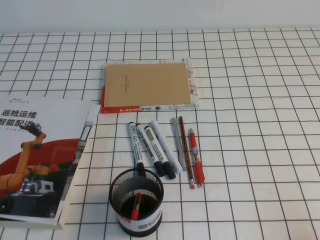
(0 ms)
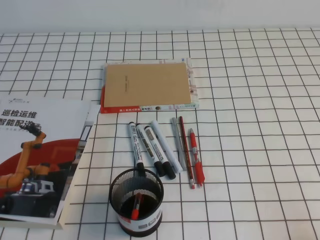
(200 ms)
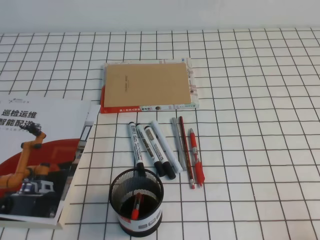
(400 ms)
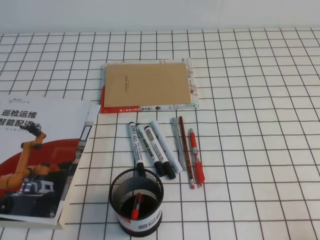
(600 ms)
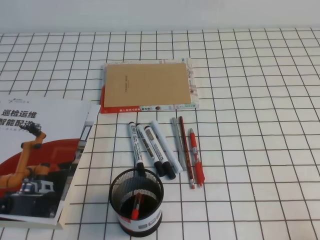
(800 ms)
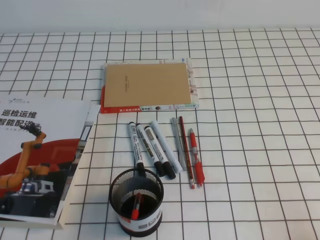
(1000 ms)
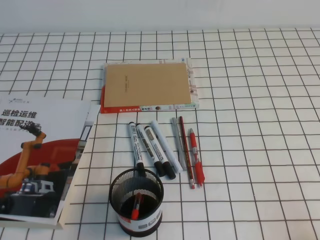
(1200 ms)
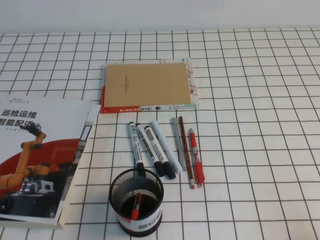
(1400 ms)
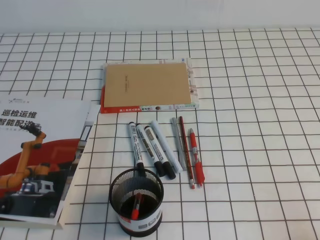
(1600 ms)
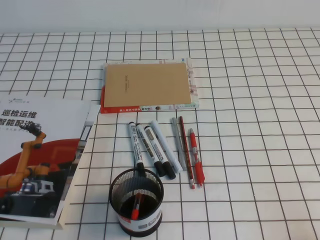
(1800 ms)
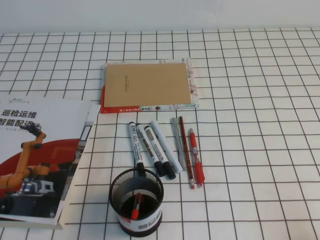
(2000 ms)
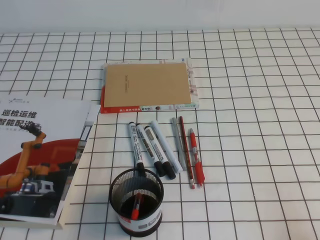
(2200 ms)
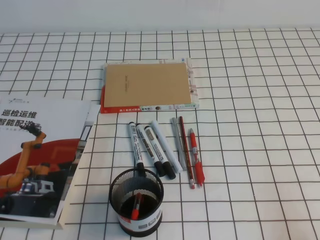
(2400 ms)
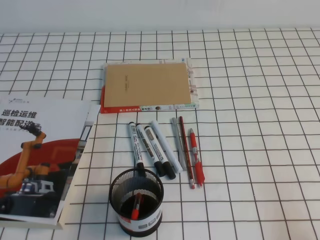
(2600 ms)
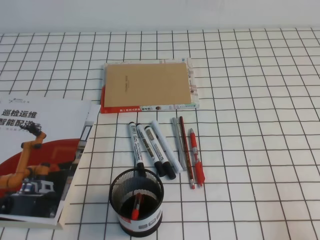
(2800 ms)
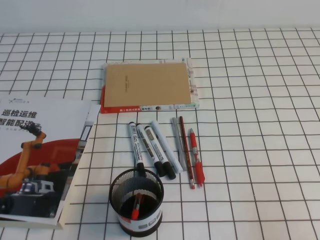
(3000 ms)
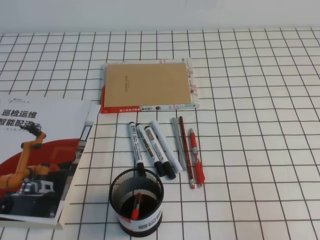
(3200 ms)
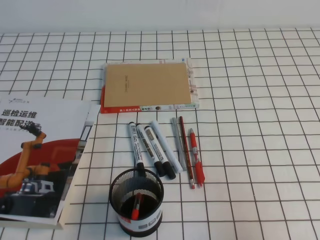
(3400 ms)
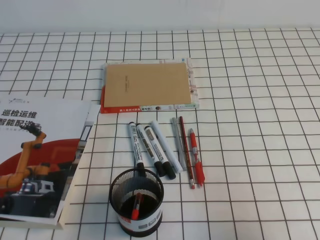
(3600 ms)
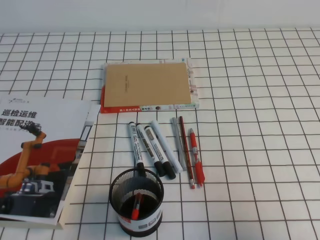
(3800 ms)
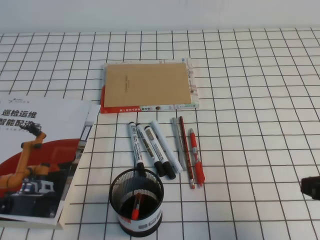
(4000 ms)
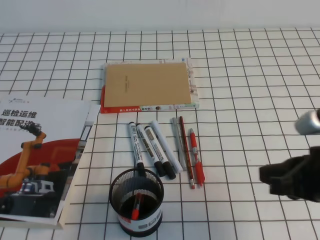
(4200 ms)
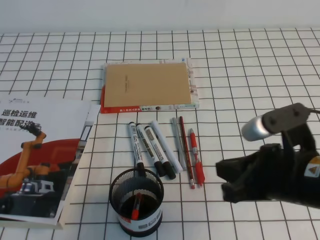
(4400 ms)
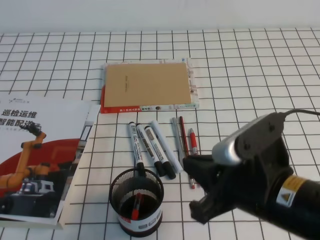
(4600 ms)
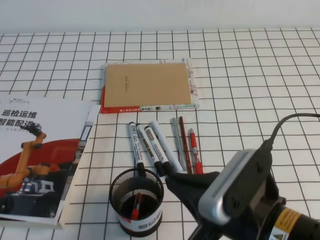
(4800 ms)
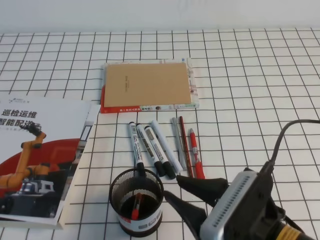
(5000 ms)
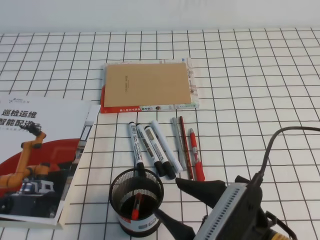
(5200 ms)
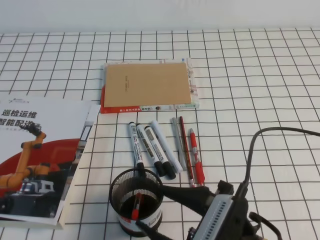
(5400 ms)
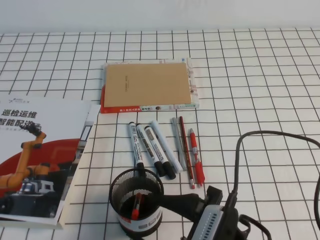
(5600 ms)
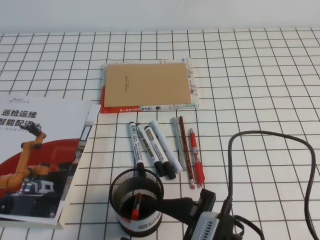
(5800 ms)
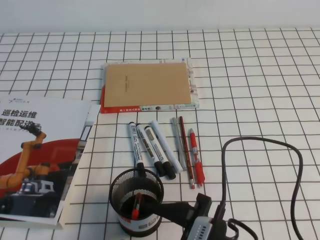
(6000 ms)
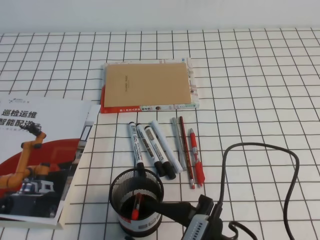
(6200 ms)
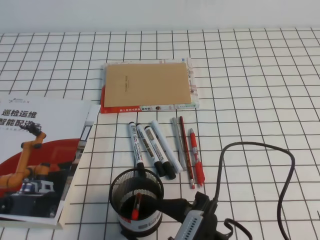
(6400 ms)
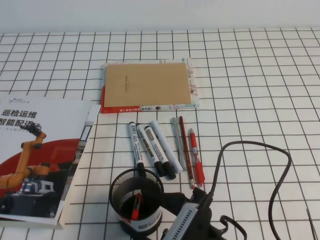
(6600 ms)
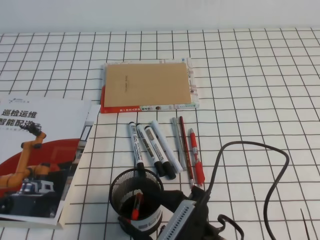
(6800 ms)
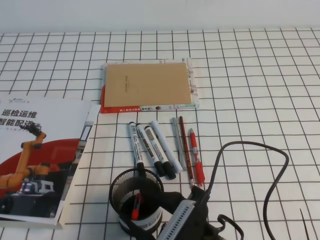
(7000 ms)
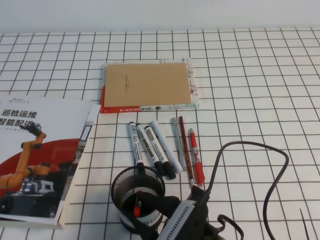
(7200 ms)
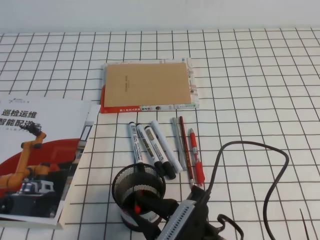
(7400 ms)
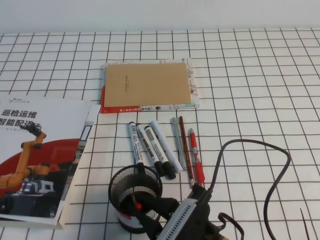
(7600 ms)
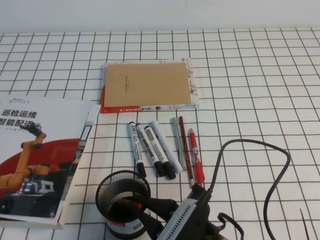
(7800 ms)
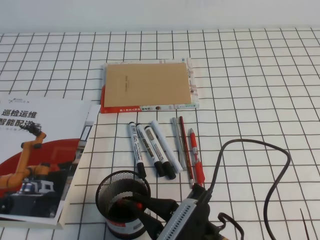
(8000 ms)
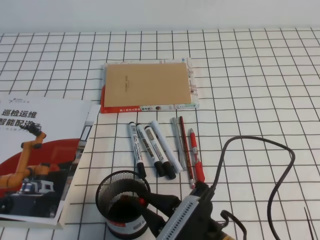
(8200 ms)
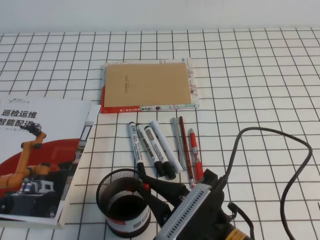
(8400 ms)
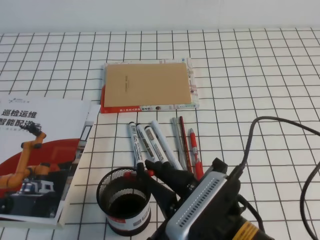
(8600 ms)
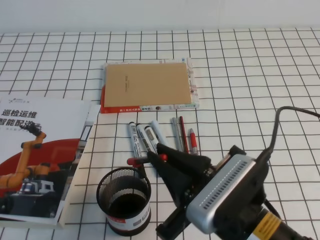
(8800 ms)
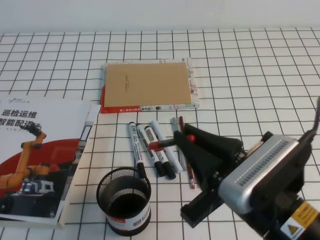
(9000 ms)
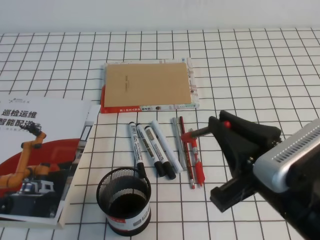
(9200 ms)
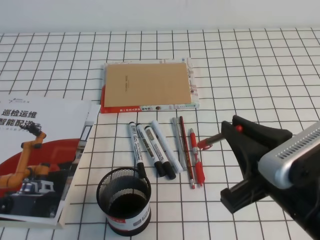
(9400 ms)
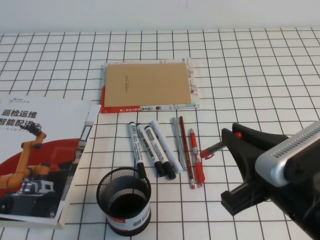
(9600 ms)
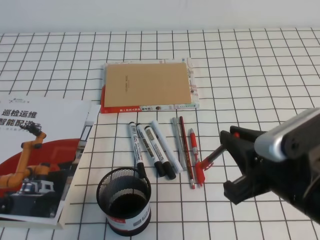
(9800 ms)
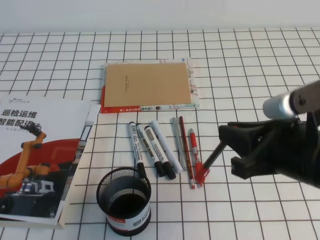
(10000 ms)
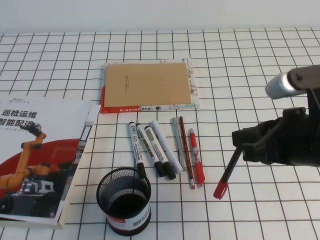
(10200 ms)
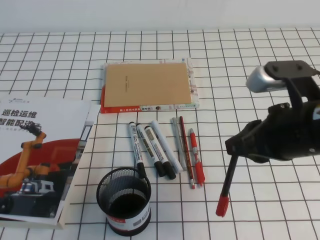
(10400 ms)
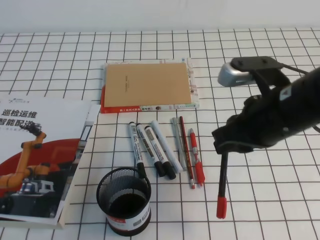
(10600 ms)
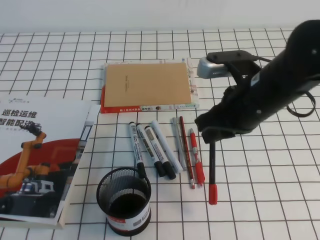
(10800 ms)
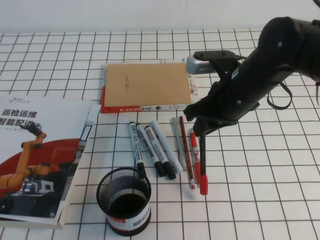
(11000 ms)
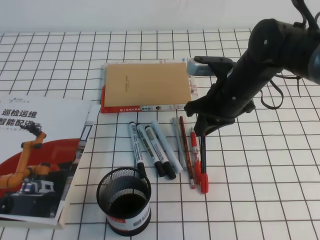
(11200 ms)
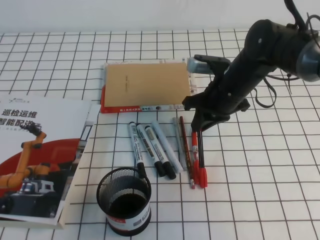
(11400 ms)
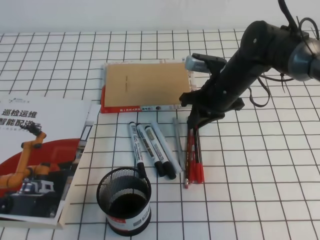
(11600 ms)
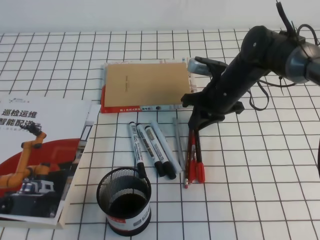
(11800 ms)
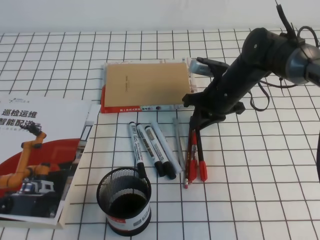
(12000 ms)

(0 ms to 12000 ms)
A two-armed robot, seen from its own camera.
0 ms - 1600 ms: Both grippers stay put.
3000 ms - 4400 ms: The right gripper heads to the left and forward, covering some 20 cm.
4400 ms - 6000 ms: The right gripper goes about 15 cm to the left, downward and backward, and opens.
6000 ms - 7600 ms: The right gripper closes its fingers.
7600 ms - 9000 ms: The right gripper travels upward and to the right by approximately 15 cm.
9000 ms - 10400 ms: The right gripper travels forward and to the right by roughly 10 cm.
10400 ms - 12000 ms: The right gripper goes approximately 25 cm forward and downward.

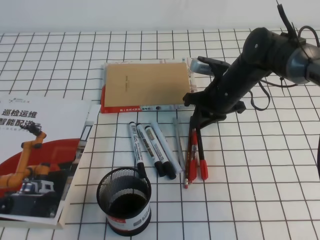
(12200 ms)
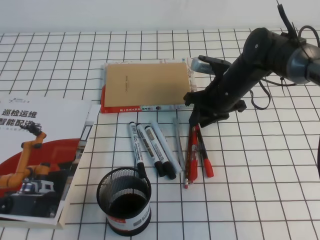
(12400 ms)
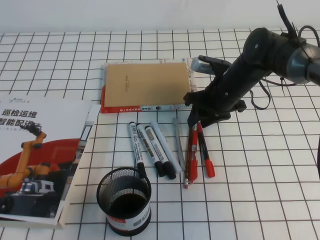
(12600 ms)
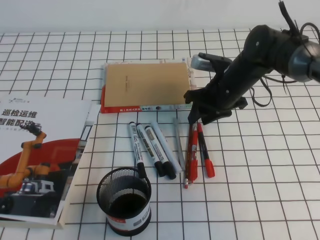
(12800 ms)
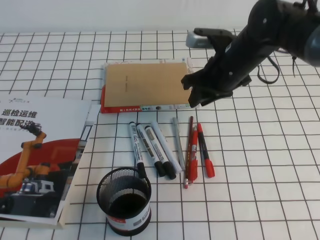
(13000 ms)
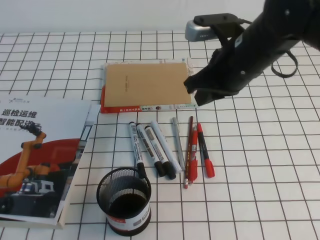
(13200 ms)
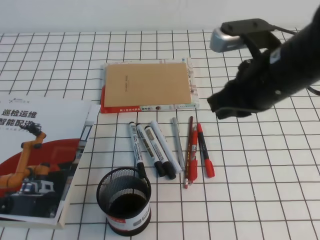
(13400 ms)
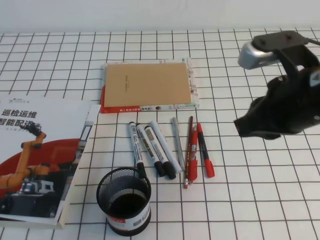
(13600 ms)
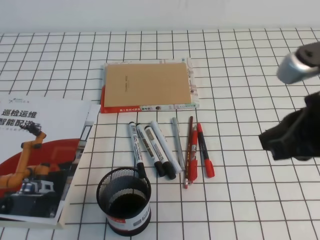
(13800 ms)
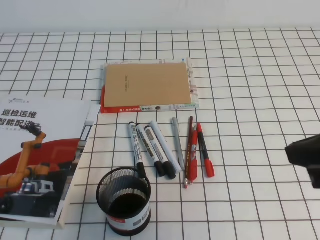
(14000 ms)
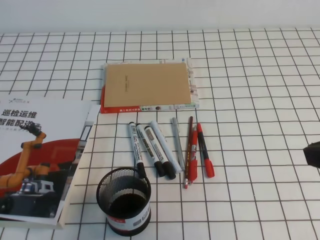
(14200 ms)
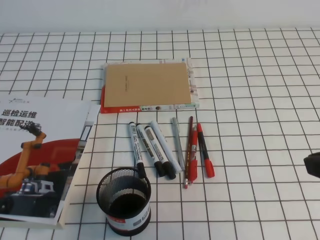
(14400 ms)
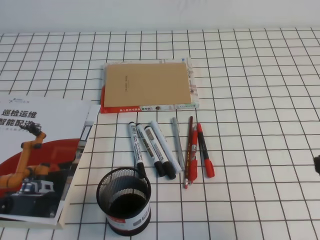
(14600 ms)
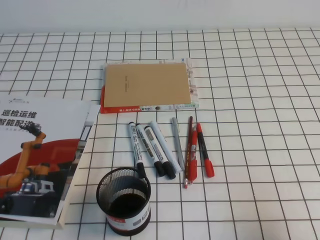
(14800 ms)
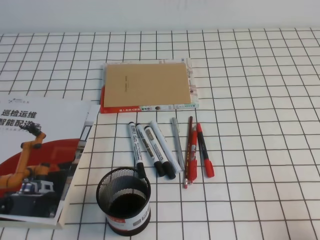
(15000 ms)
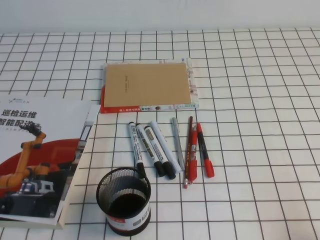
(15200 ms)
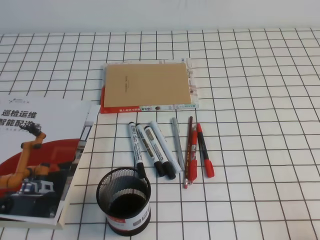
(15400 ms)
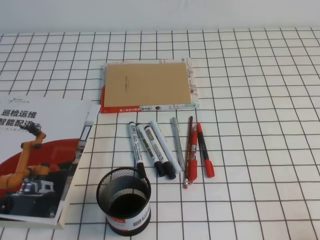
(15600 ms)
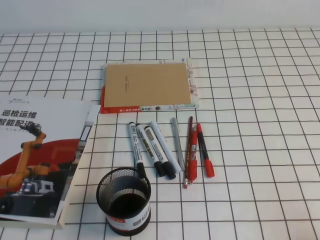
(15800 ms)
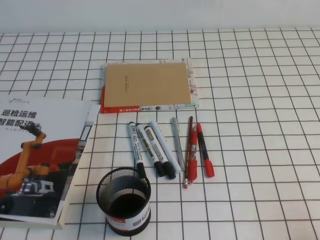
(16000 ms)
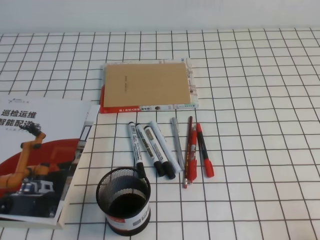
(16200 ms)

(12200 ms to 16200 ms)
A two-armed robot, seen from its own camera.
Step, 12200 ms - 16200 ms: Pick up the pen from the pen holder.
12200 ms - 13600 ms: The right gripper goes some 25 cm backward and upward, and opens and closes again.
13600 ms - 14800 ms: The right gripper is displaced backward, to the right and downward by about 20 cm.
14800 ms - 16200 ms: The right gripper is displaced downward and backward by approximately 10 cm.

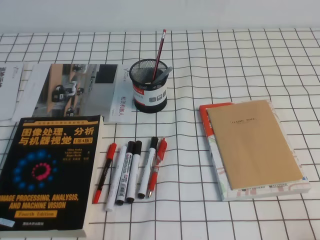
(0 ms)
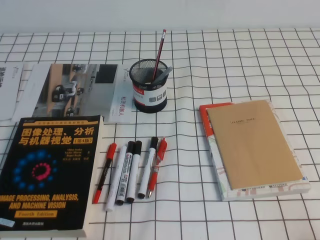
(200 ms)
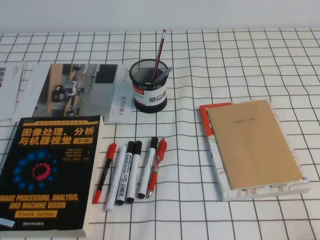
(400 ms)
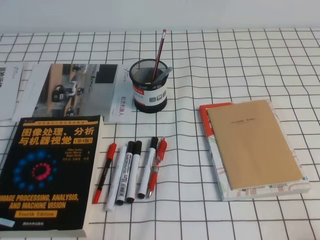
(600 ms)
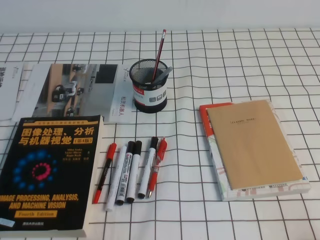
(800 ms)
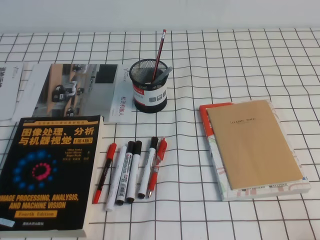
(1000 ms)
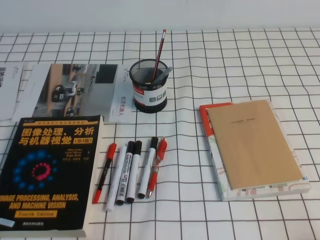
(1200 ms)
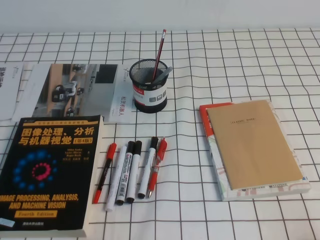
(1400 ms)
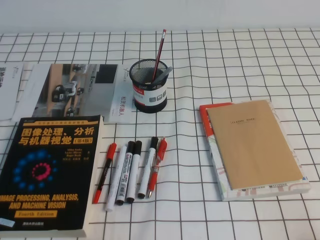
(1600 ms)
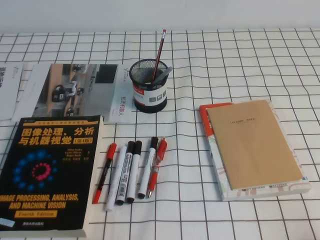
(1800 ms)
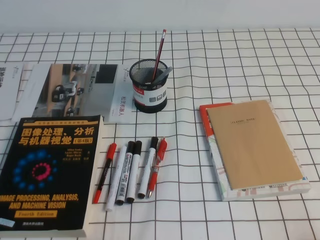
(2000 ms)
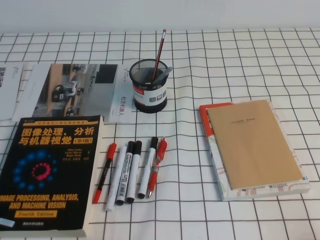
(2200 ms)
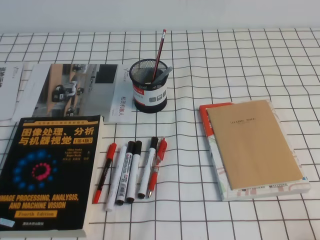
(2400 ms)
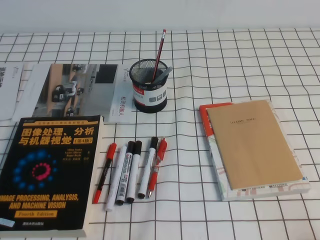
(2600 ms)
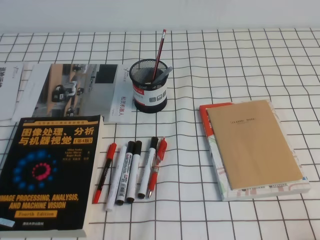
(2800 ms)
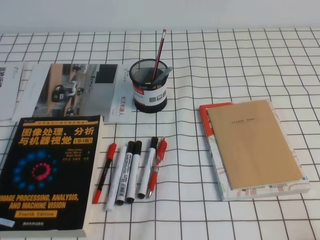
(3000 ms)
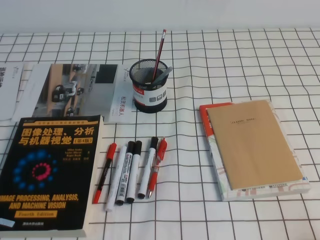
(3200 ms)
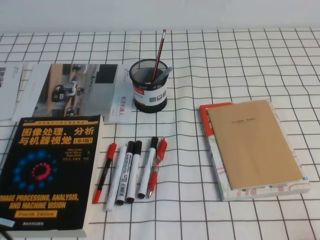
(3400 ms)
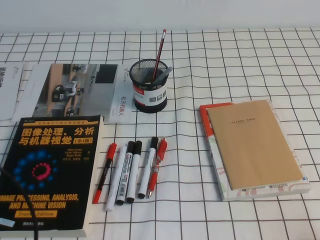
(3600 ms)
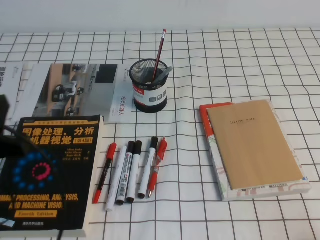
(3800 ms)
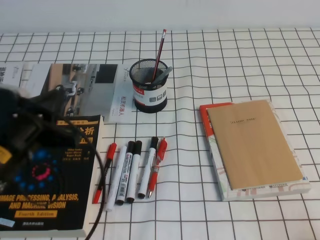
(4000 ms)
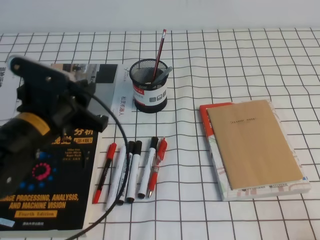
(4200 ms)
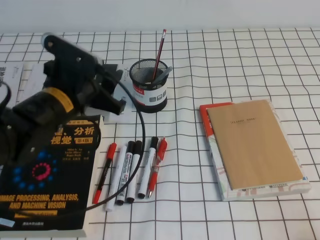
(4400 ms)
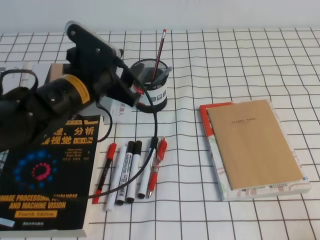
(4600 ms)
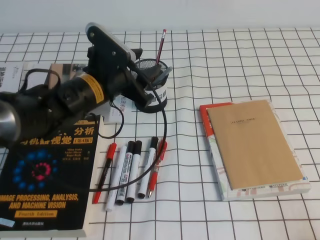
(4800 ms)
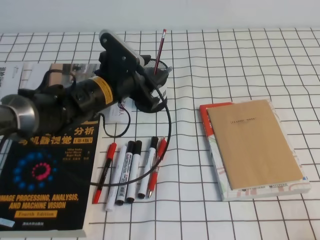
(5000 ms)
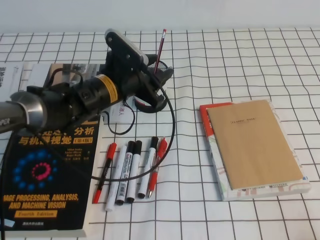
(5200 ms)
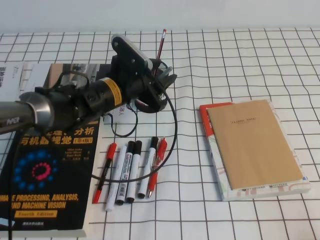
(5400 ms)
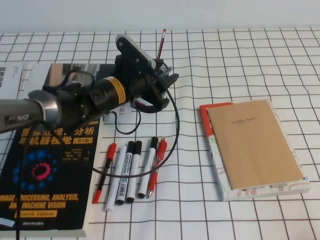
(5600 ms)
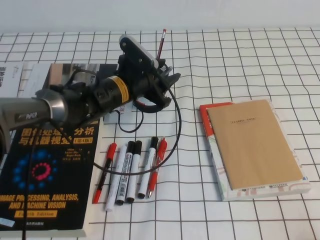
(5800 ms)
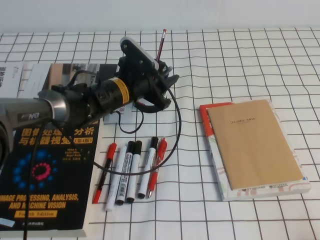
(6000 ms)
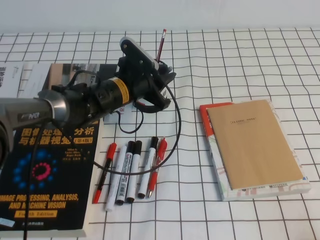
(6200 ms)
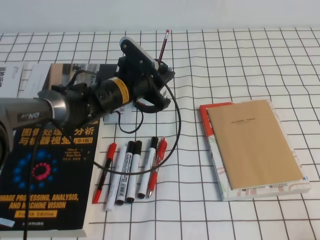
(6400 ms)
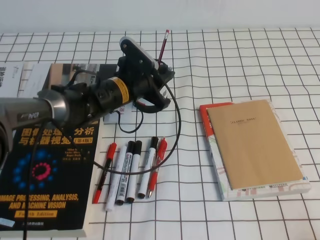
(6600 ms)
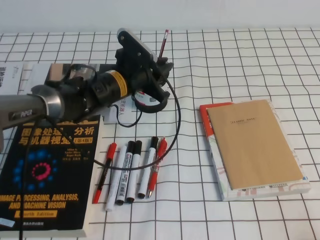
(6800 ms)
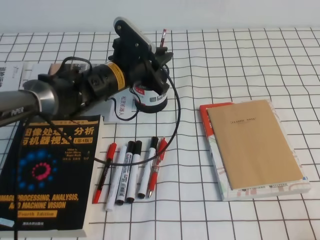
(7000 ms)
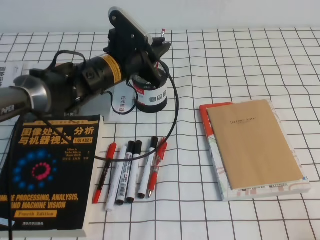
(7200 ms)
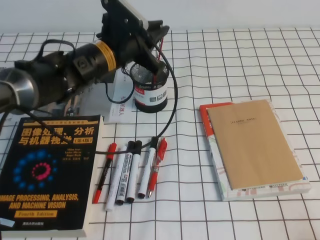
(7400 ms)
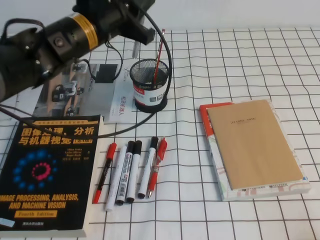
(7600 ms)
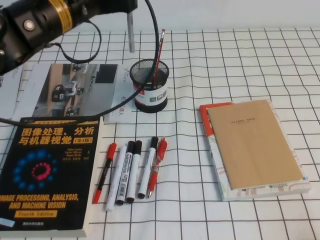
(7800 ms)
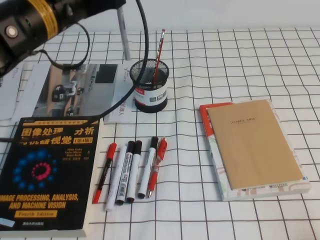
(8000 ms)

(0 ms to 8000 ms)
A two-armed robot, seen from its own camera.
0 ms - 1600 ms: Both grippers stay about where they are.
3200 ms - 4800 ms: The left gripper heads forward and to the right, covering some 35 cm, and opens up.
4800 ms - 6400 ms: The left gripper is displaced forward and downward by roughly 10 cm, and closes up.
6400 ms - 8000 ms: The left gripper goes roughly 20 cm upward and backward.
